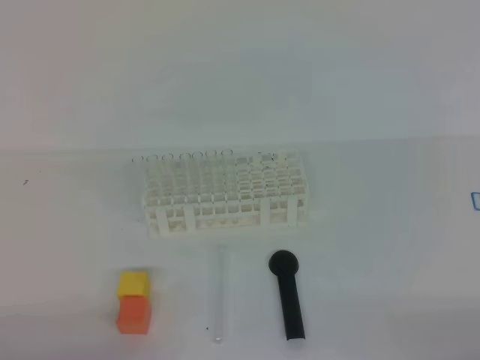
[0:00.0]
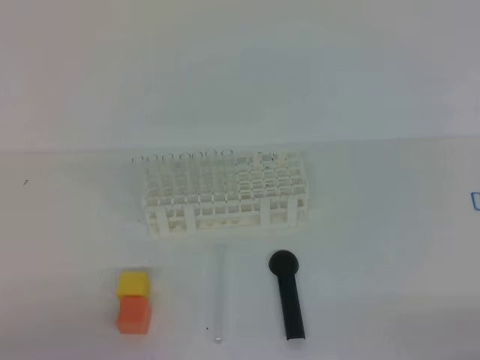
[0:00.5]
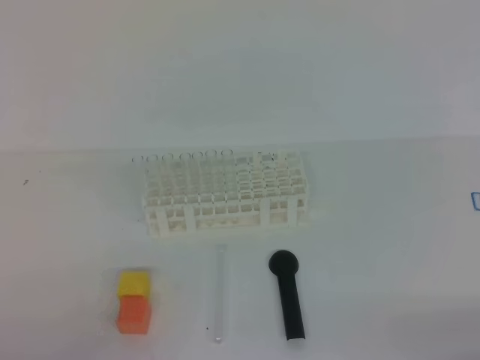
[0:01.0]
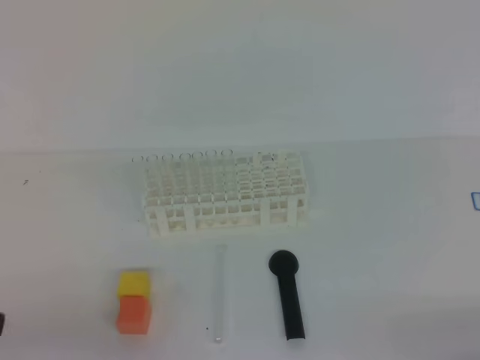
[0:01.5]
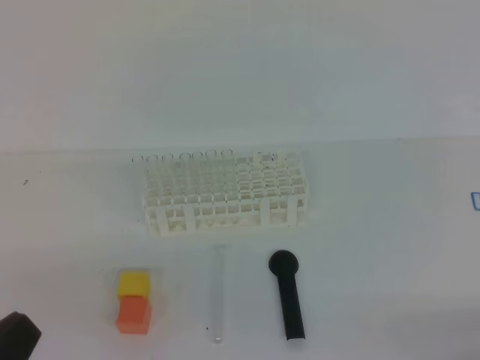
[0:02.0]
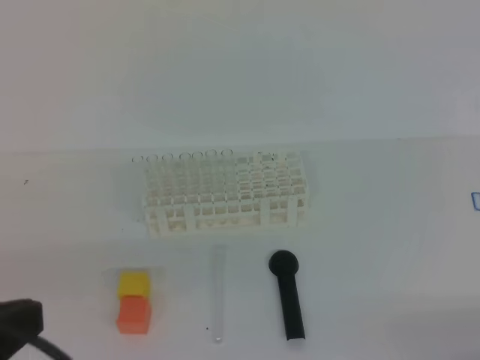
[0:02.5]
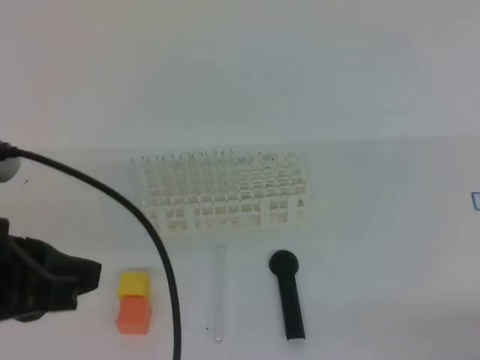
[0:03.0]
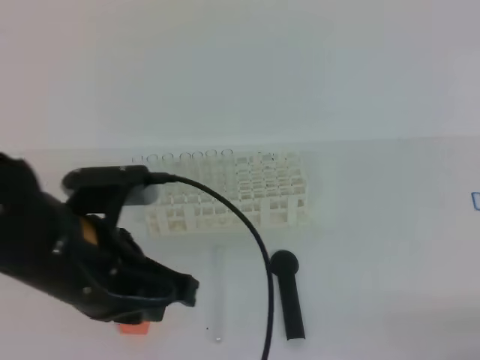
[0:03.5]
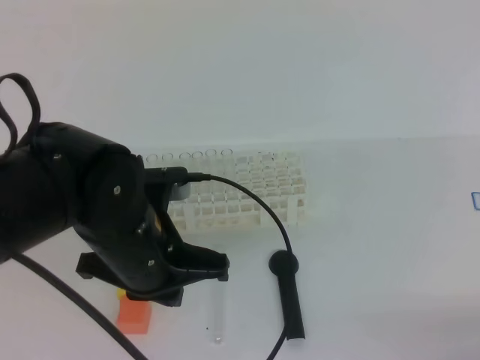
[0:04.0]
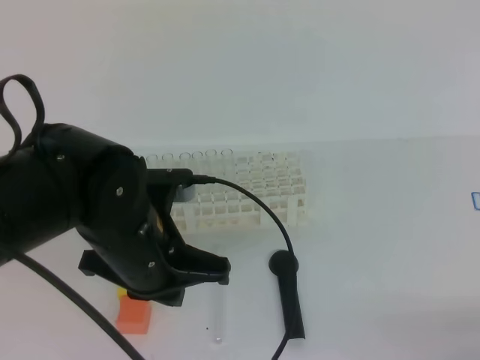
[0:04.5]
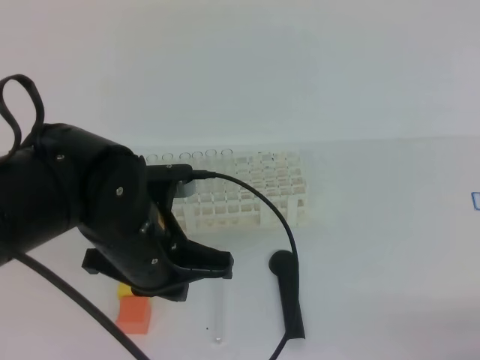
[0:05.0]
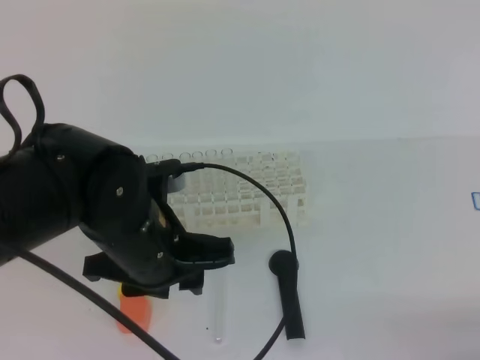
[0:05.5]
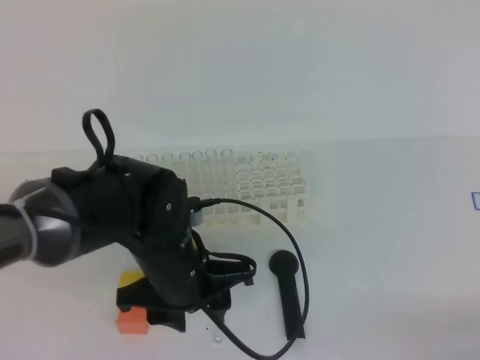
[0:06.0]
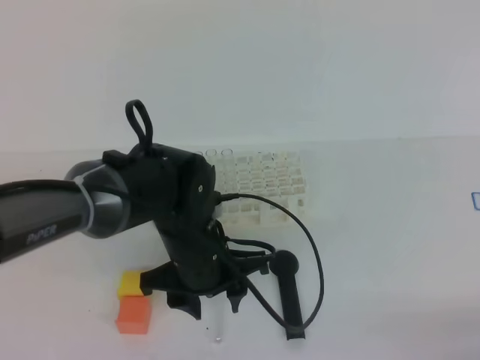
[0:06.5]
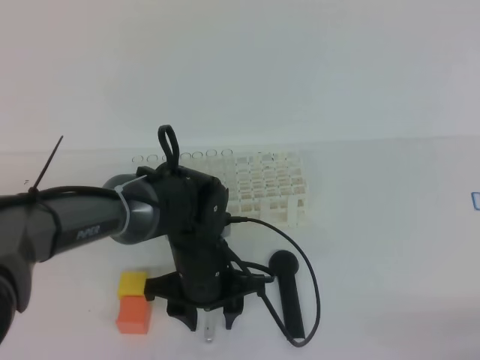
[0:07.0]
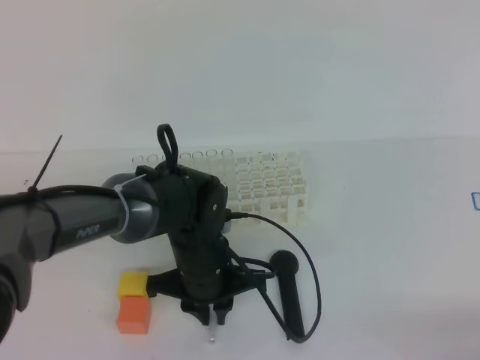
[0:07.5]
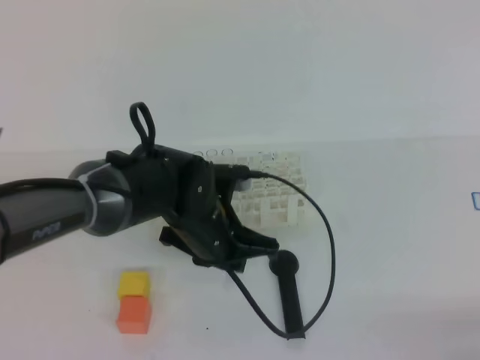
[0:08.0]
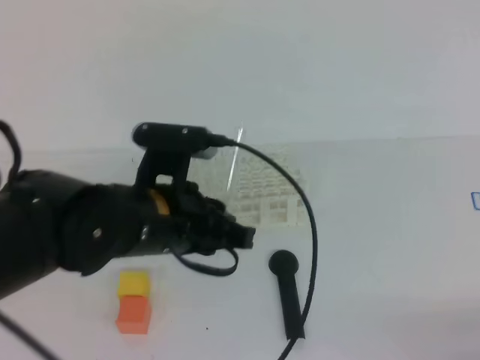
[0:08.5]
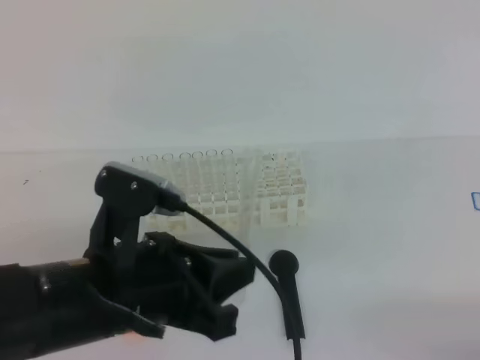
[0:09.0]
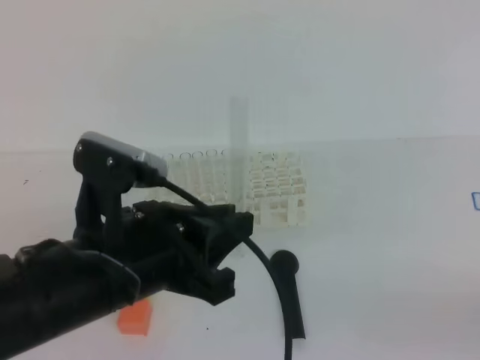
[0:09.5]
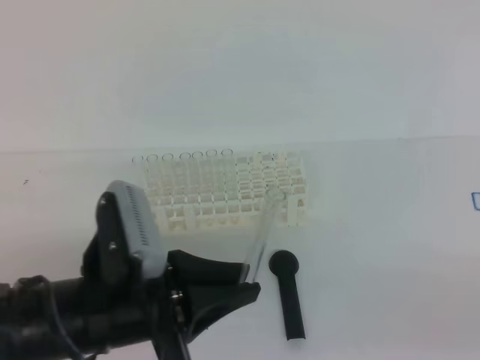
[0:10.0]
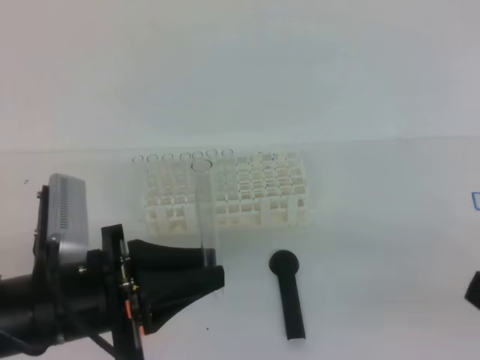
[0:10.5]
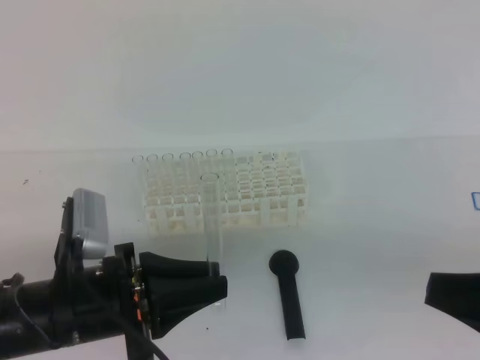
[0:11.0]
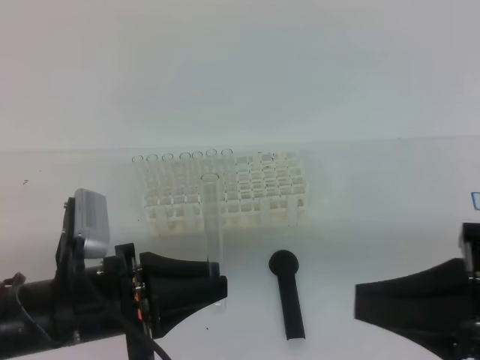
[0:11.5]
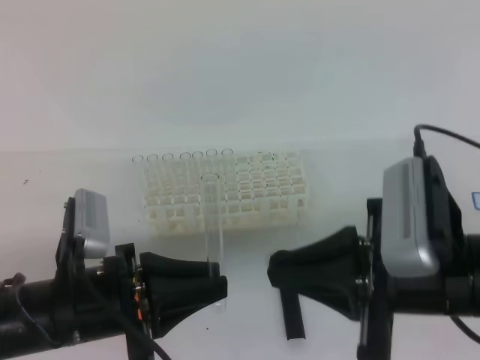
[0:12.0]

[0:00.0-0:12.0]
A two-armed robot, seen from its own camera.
0:00.0 to 0:02.0: The left gripper is displaced upward by about 10 cm.
0:02.0 to 0:04.0: The left gripper moves forward and to the right, about 25 cm.
0:04.0 to 0:06.0: The left gripper travels downward by some 5 cm, and opens up.
0:06.0 to 0:08.0: The left gripper changes place by roughly 5 cm, and closes up.
0:08.0 to 0:10.0: The left gripper moves backward and to the left, some 15 cm; the right gripper moves upward, roughly 10 cm.
0:10.0 to 0:12.0: The right gripper is displaced to the left and forward by about 20 cm.

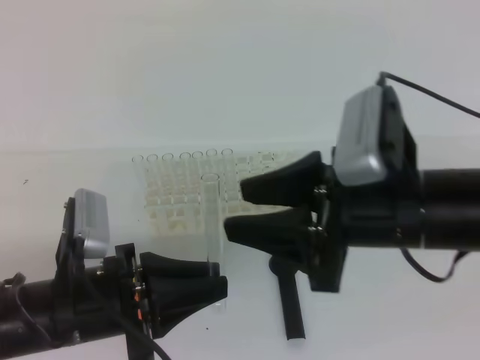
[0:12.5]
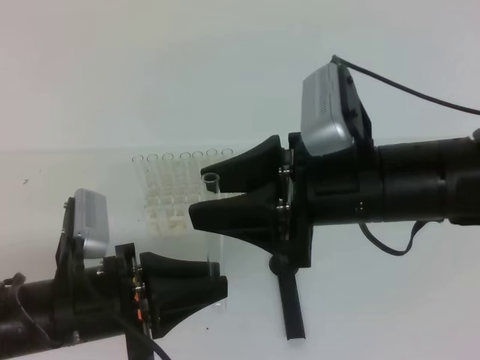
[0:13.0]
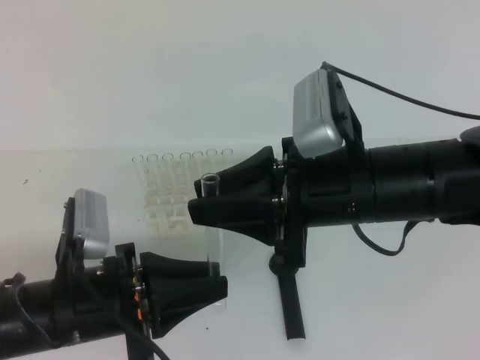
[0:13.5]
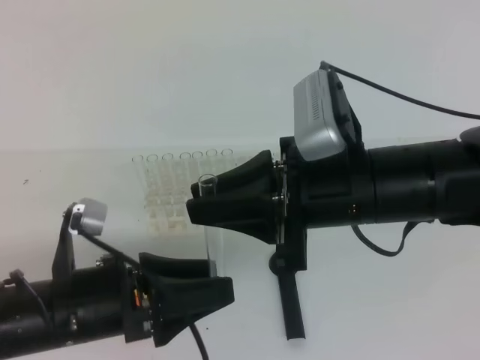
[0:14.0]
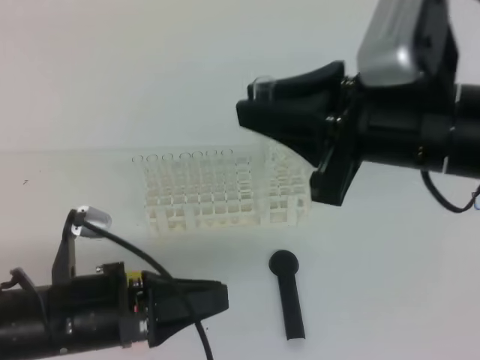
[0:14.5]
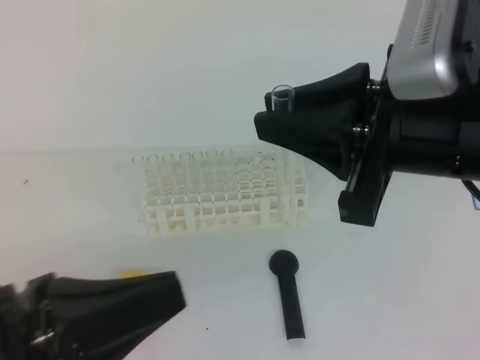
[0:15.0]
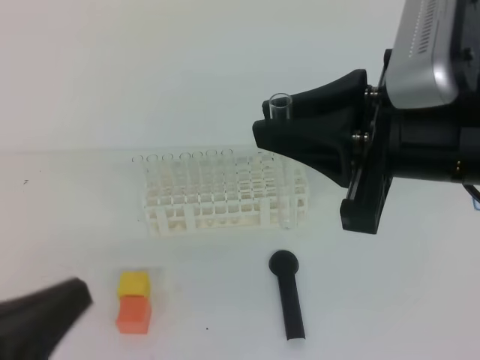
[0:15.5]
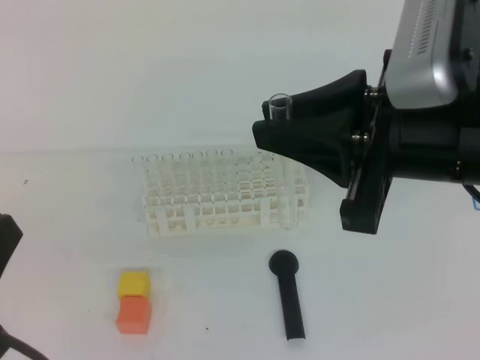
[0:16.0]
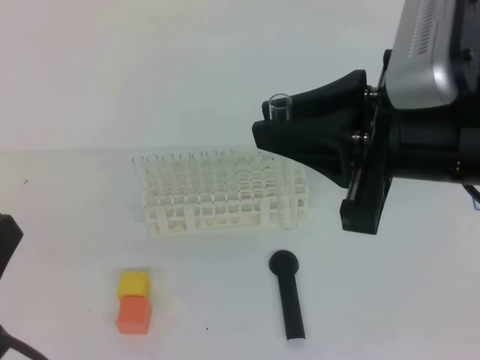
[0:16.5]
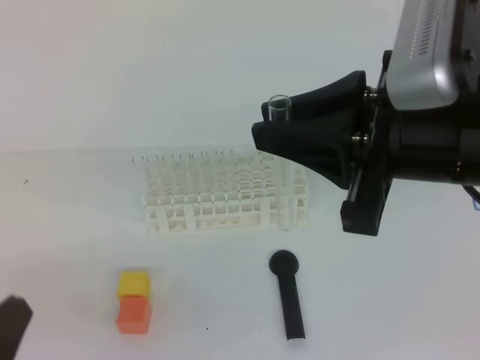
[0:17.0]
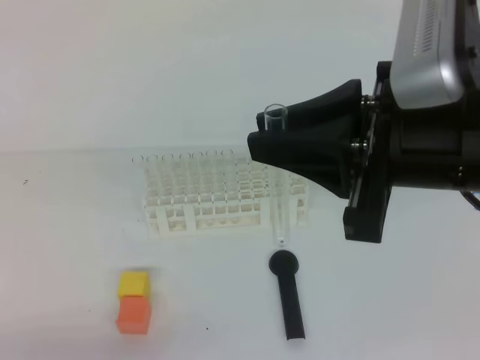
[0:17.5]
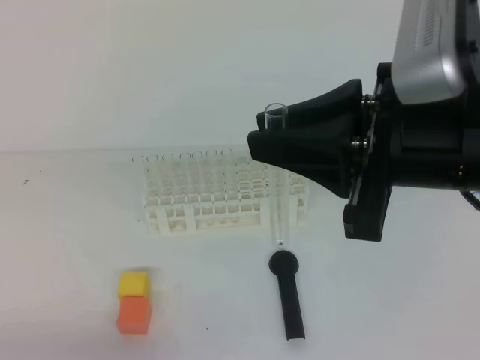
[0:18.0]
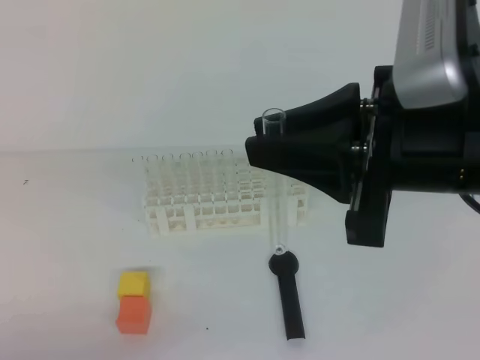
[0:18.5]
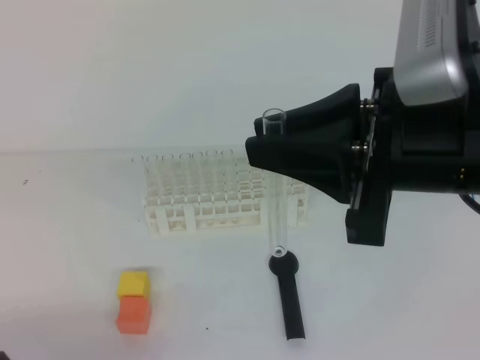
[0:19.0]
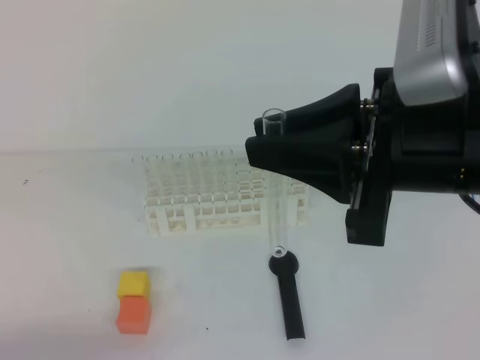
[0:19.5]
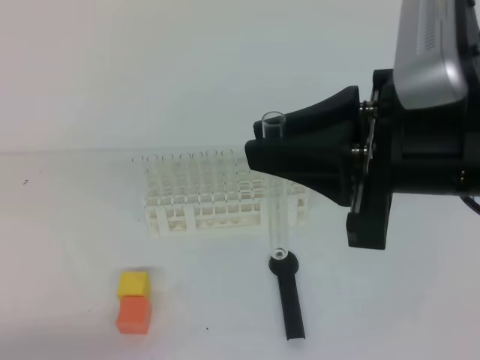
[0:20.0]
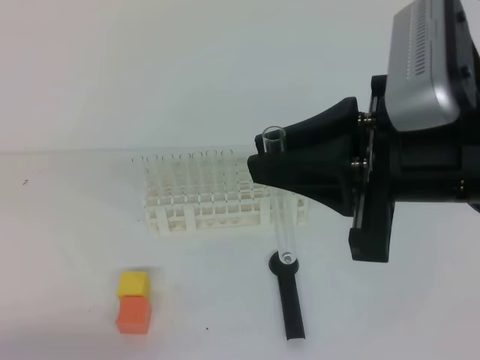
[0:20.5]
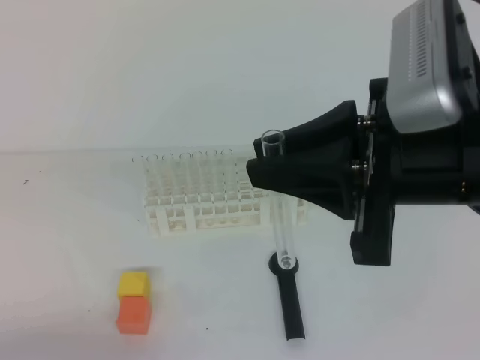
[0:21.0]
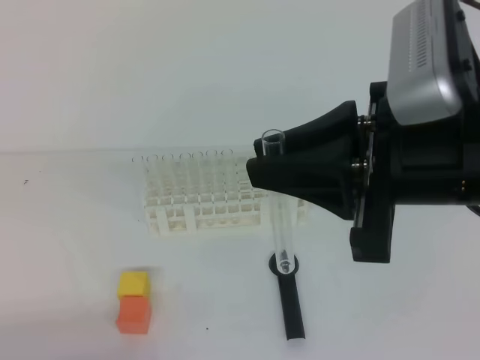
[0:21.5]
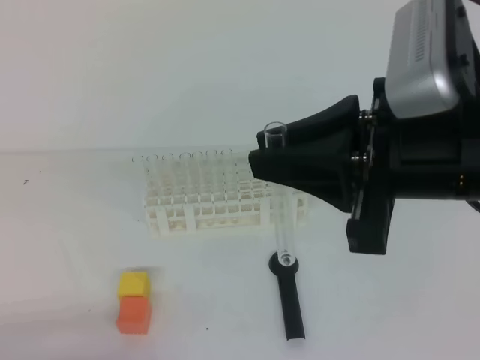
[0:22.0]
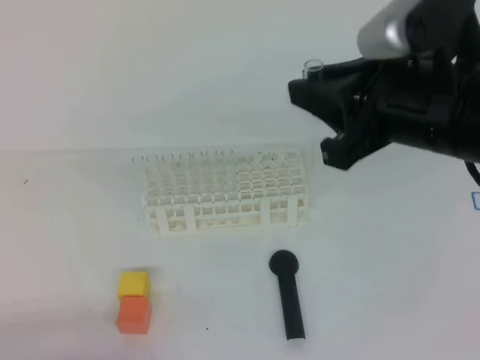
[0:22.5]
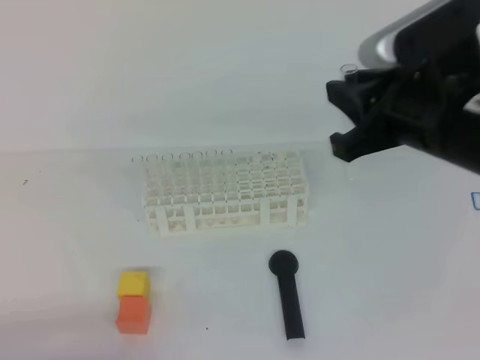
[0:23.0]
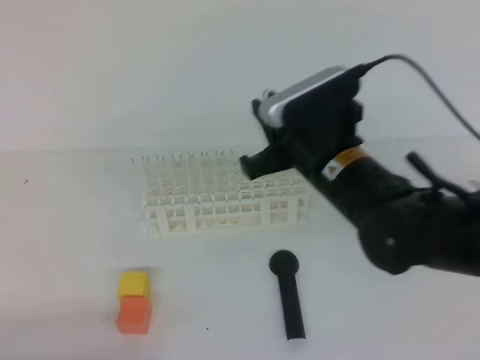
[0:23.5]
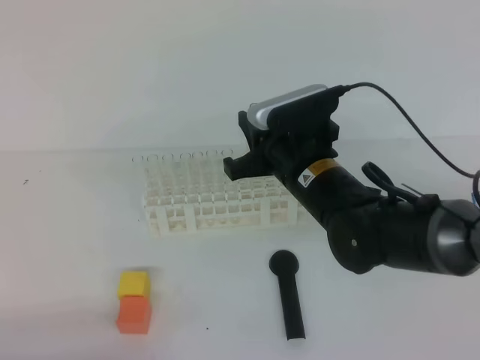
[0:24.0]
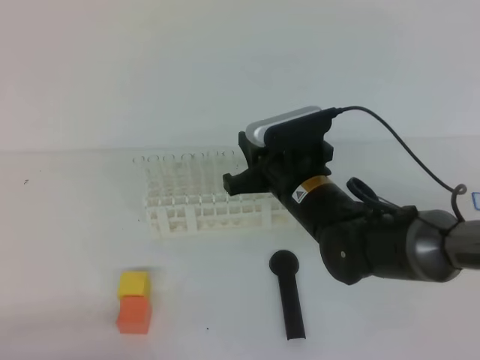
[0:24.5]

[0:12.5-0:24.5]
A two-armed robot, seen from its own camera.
0:12.5 to 0:14.5: The left gripper opens. The right gripper travels upward by roughly 5 cm, and closes up.
0:14.5 to 0:16.5: The left gripper shifts about 15 cm upward, backward and to the left, and closes its fingers.
0:16.5 to 0:18.5: The left gripper travels downward by some 15 cm.
0:22.5 to 0:24.5: The right gripper is displaced downward, forward and to the left by approximately 20 cm.

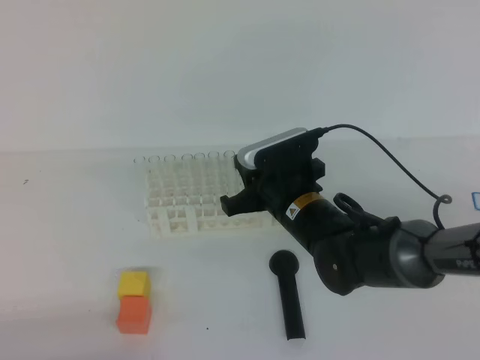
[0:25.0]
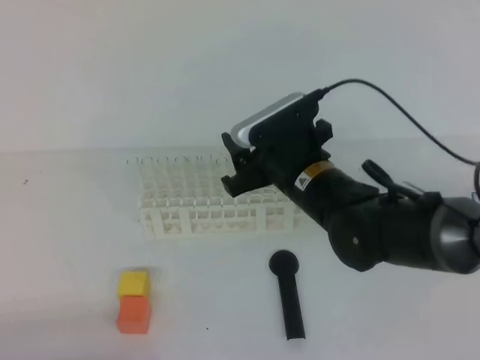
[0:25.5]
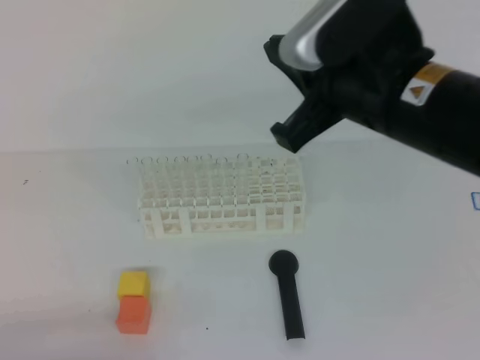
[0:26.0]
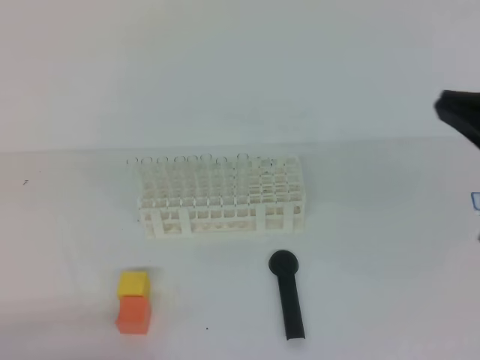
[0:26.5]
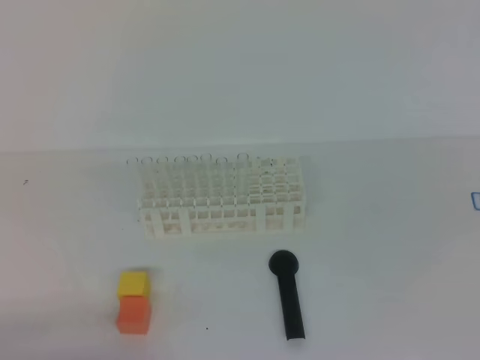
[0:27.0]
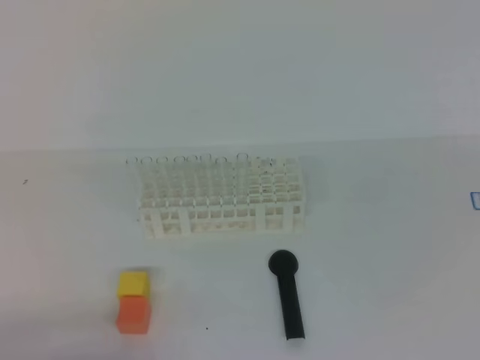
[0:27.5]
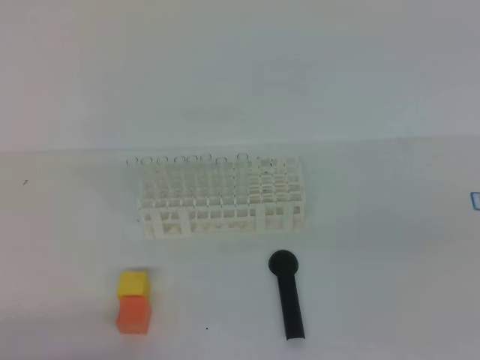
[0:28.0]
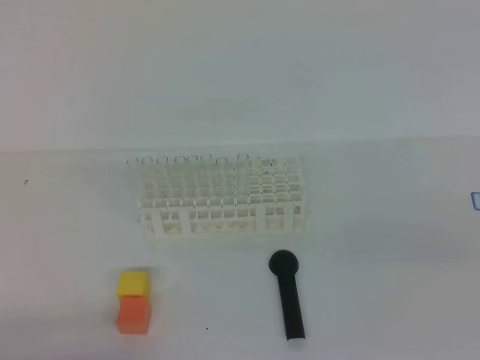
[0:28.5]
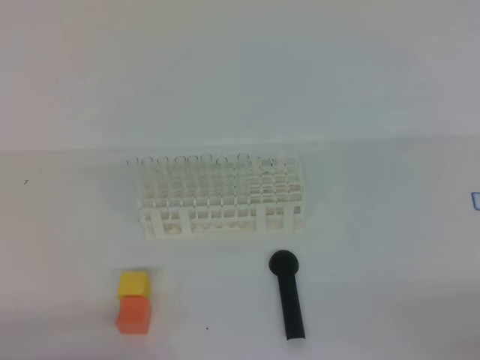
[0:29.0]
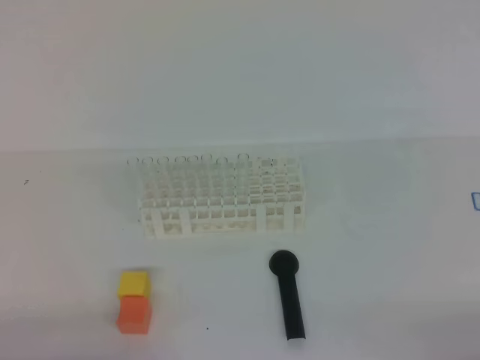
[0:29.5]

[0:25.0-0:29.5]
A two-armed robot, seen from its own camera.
0:25.0 to 0:27.0: The right gripper shifts approximately 40 cm backward, upward and to the right, and closes.
